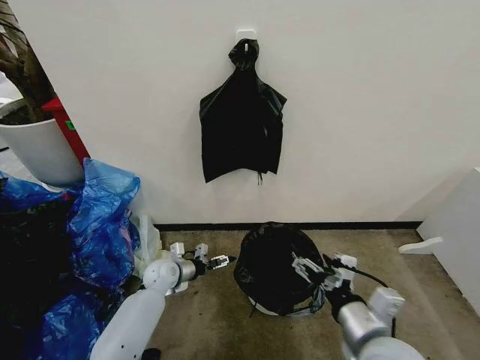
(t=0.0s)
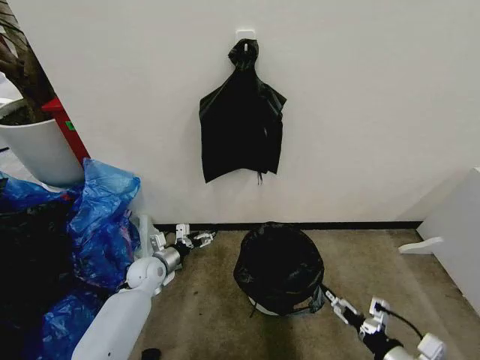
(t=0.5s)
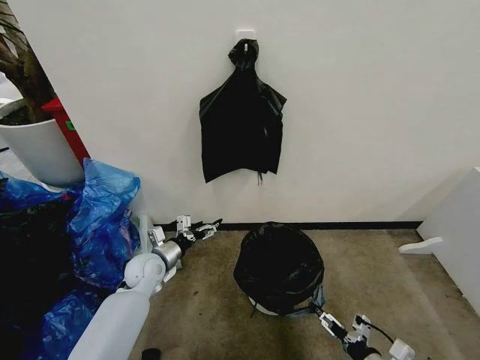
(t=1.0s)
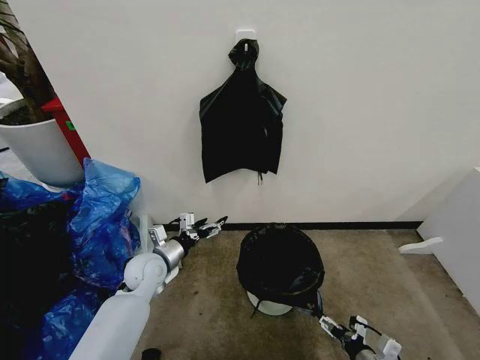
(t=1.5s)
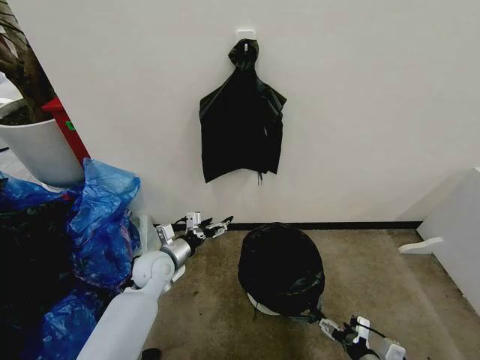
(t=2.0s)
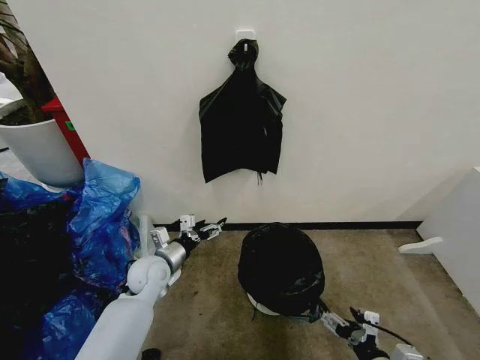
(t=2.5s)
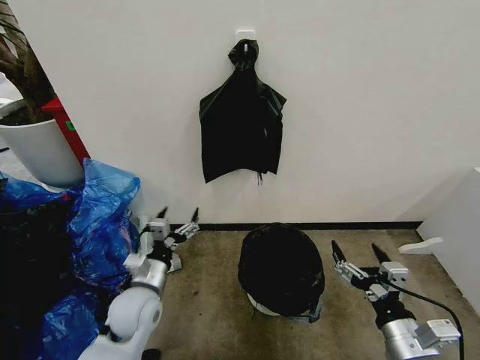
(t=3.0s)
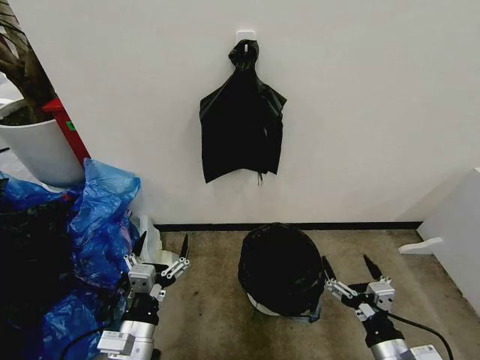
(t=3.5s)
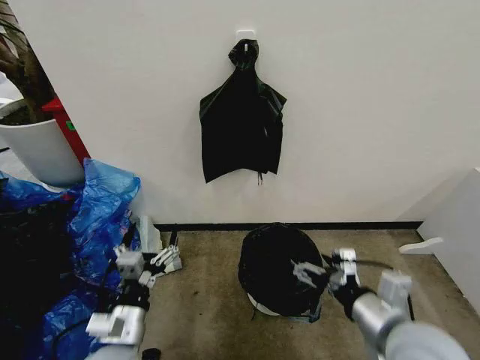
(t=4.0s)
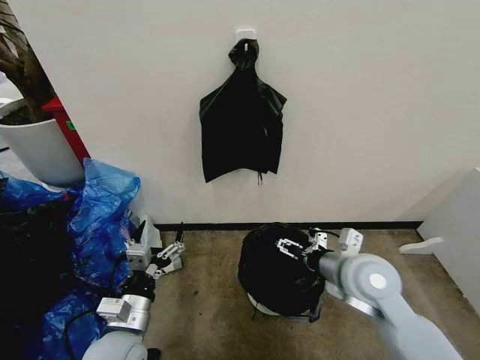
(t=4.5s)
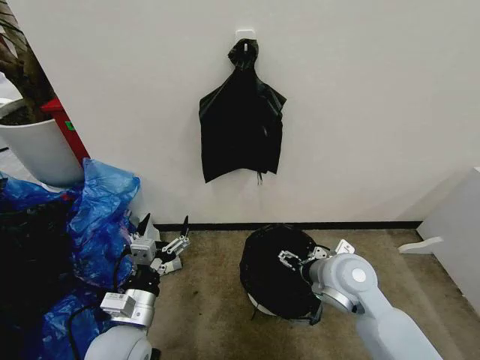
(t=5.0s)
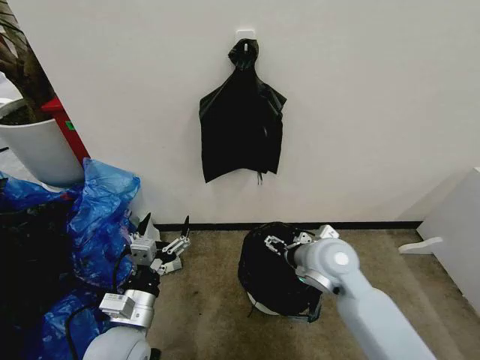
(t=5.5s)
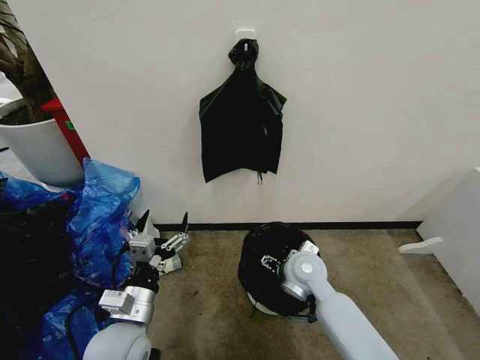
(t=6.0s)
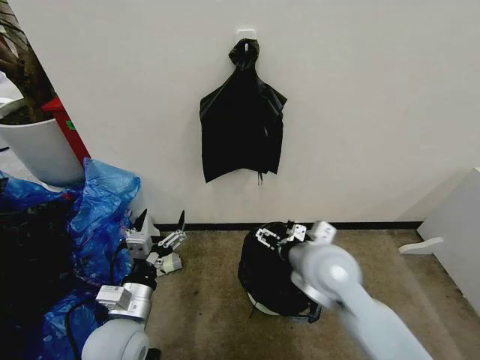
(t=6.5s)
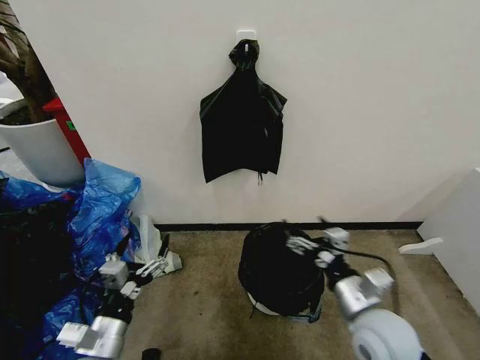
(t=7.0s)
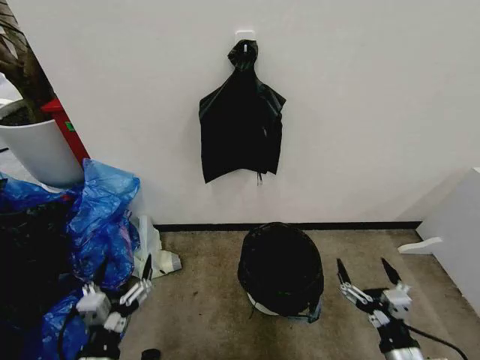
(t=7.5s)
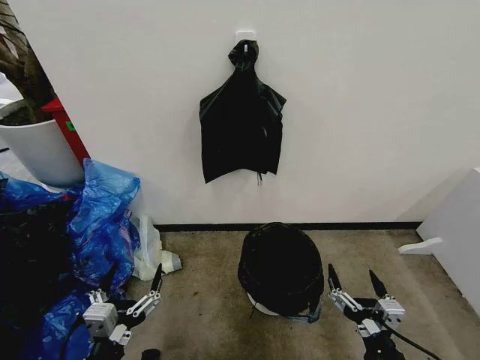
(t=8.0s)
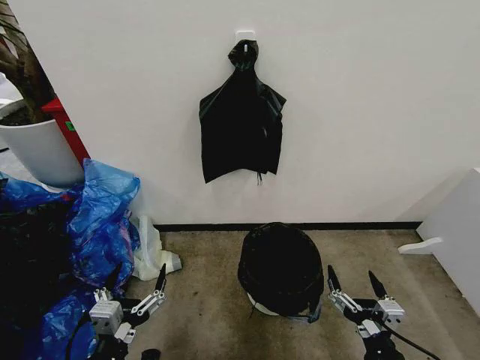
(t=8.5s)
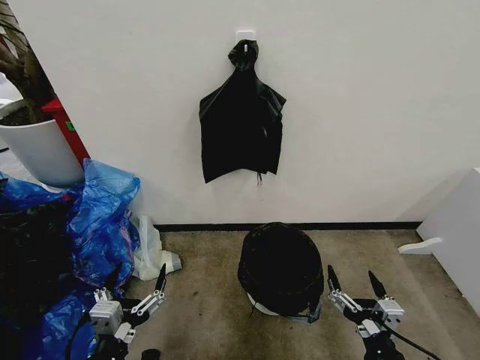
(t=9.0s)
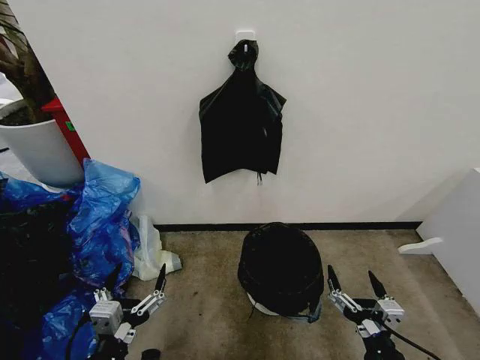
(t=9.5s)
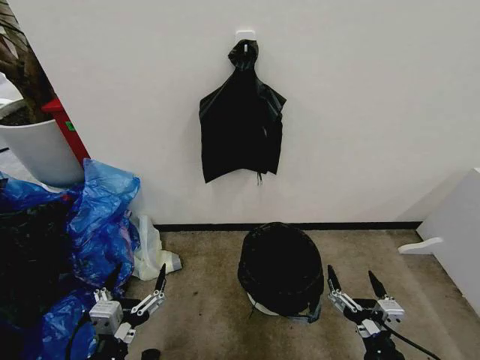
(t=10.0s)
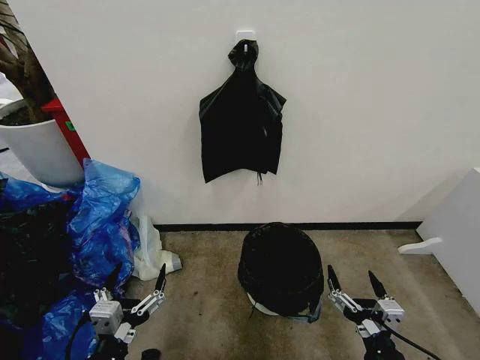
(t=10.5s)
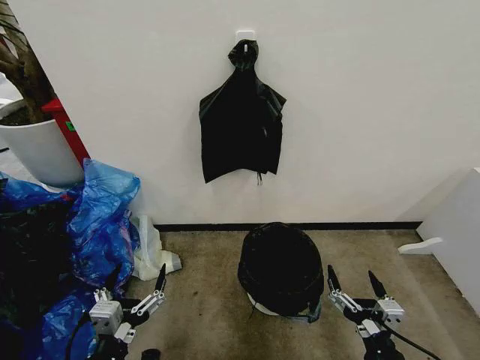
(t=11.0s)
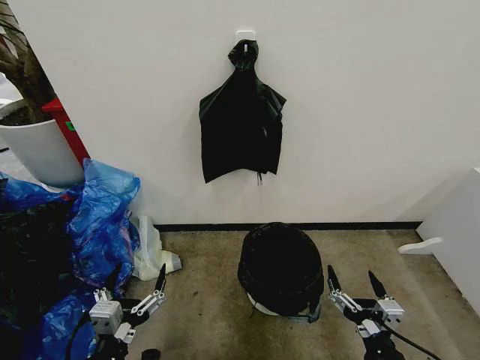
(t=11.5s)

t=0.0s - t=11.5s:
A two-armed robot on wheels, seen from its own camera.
Task of the whole recording: Place the garbage bag over the trash bin.
t=0.0s - t=2.0s: The left gripper heads upward, covering roughly 10 cm. The right gripper heads downward and to the right, covering roughly 20 cm.
t=2.0s - t=4.0s: The right gripper goes up and down, some 25 cm each way, reversing 2 times. The left gripper travels backward by about 20 cm.
t=4.0s - t=6.0s: The right gripper shifts about 25 cm forward, downward and to the left.
t=6.0s - t=7.5s: The right gripper moves backward and to the right, some 30 cm. Meanwhile the left gripper heads backward, covering roughly 10 cm.
t=7.5s - t=9.5s: The grippers stay close to where they were, moving slightly.
t=9.5s - t=11.5s: Neither gripper changes place.

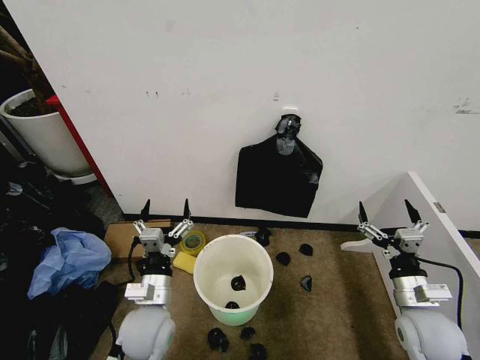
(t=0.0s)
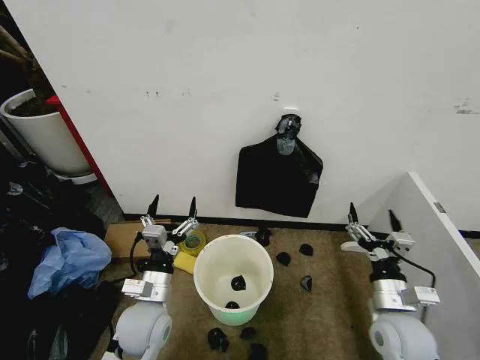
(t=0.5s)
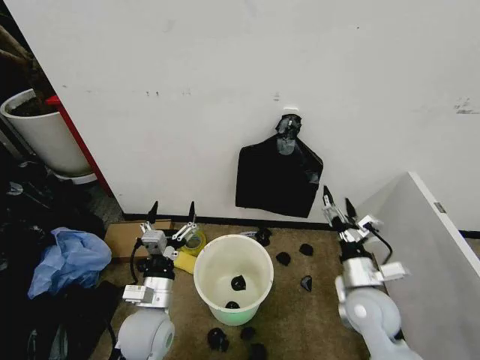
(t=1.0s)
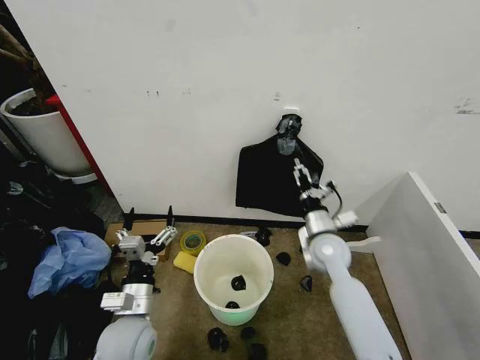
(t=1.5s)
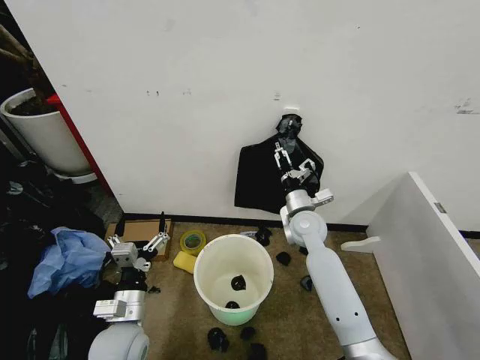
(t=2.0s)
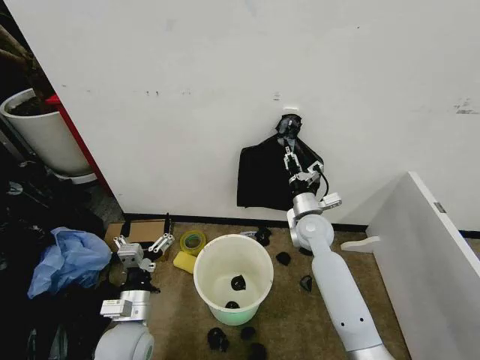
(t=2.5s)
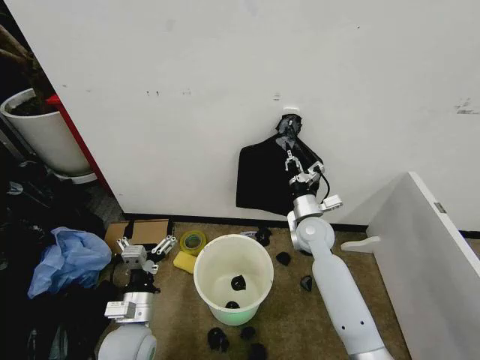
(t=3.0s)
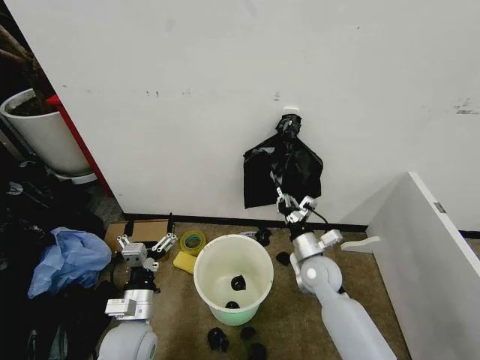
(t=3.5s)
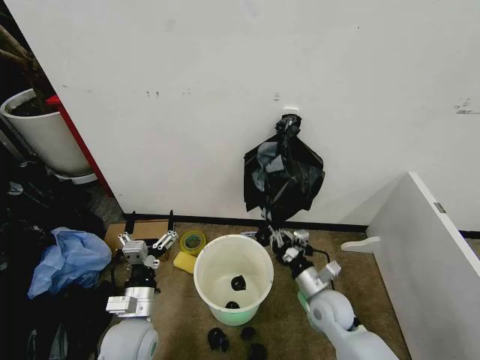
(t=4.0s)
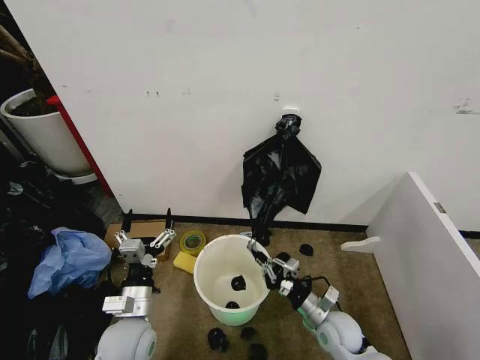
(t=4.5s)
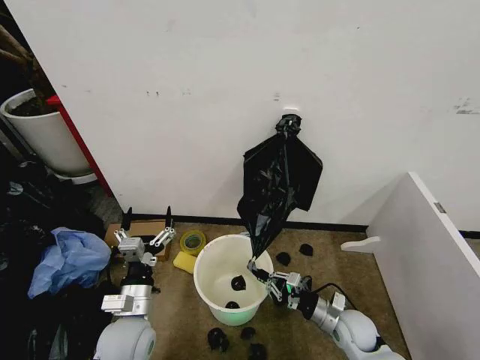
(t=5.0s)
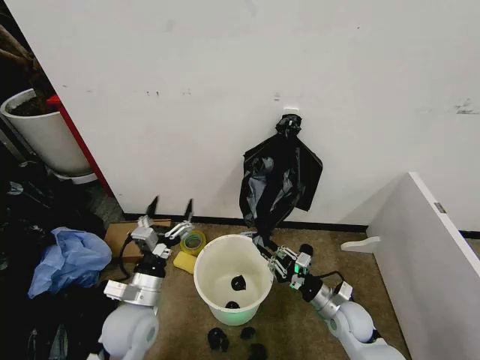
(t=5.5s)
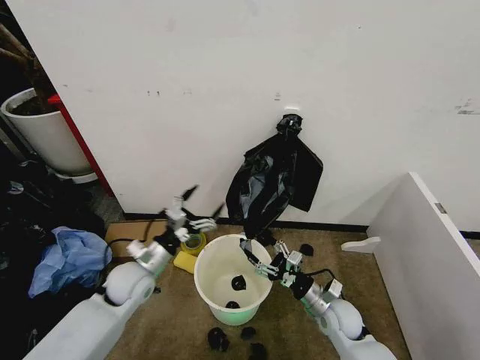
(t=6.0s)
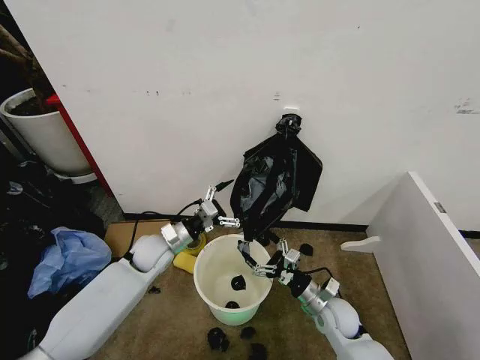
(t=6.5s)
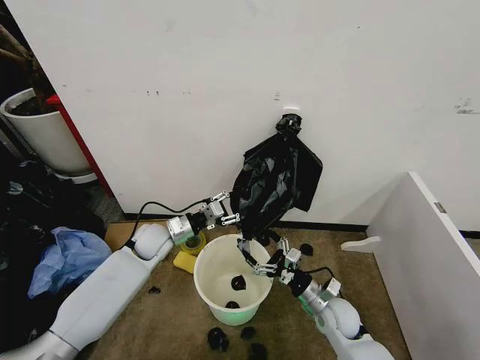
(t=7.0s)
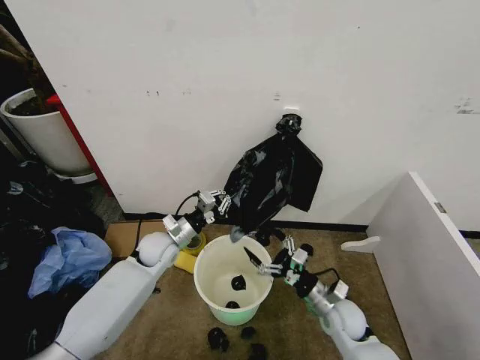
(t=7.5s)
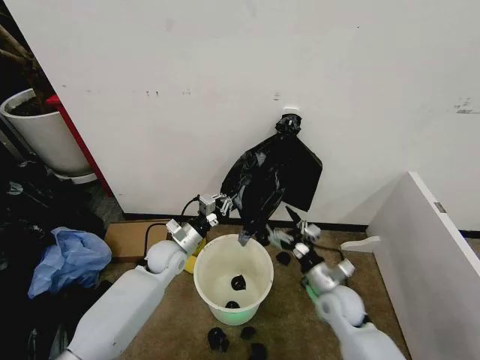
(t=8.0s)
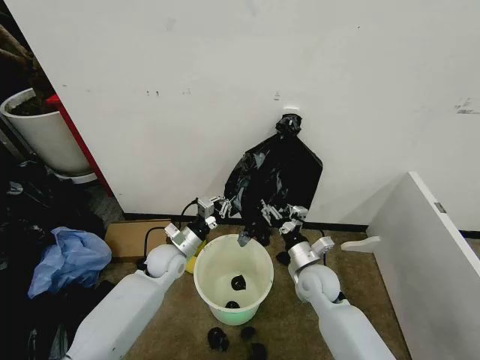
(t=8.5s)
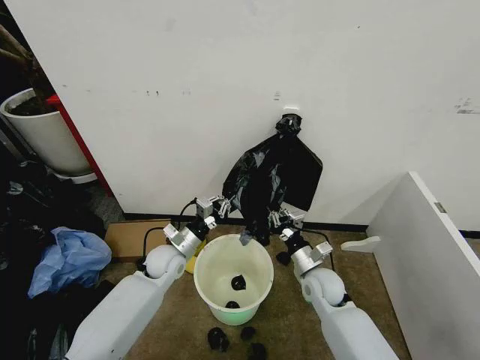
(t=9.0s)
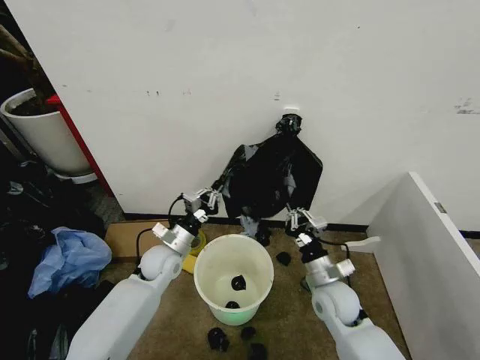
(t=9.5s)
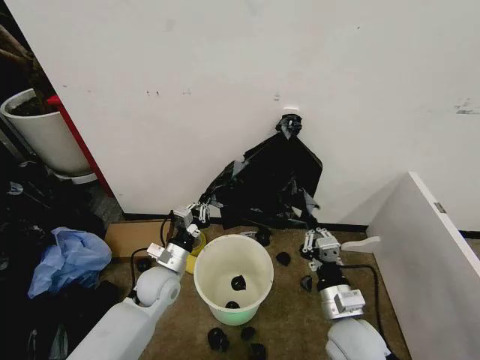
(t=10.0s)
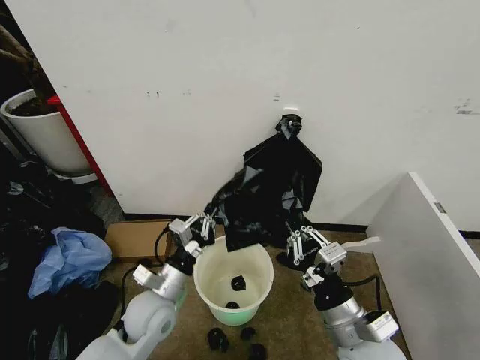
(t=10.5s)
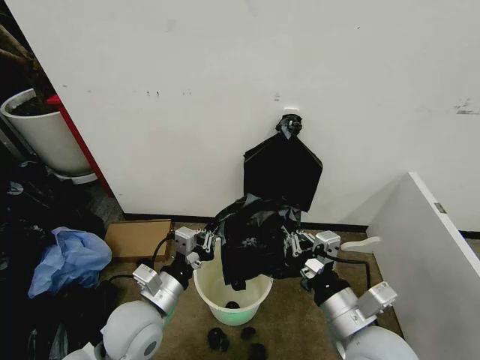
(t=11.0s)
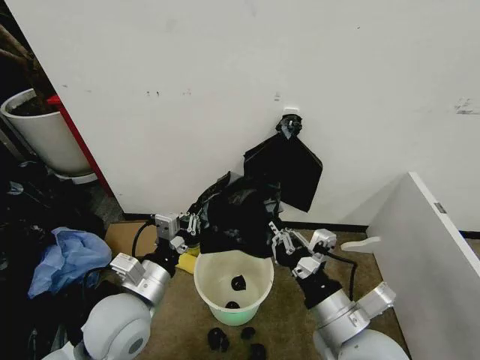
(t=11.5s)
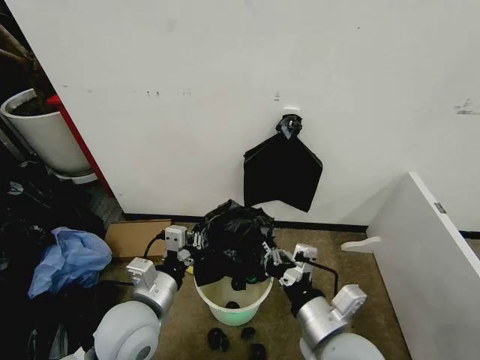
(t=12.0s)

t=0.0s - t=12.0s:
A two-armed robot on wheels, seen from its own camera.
Task of the whole recording: Place the garbage bag over the trash bin.
t=2.0s - t=4.0s: The right gripper goes about 15 cm backward and downward, and closes up.
t=4.0s - t=6.0s: The right gripper opens up. The left gripper moves forward, some 10 cm.
t=6.0s - t=8.0s: The left gripper moves forward and to the right, roughly 10 cm, and closes up.
t=8.0s - t=10.0s: The right gripper travels backward and upward by approximately 15 cm, and closes its fingers, while the left gripper goes some 10 cm backward.
t=10.0s - t=12.0s: The left gripper travels backward and upward by roughly 20 cm, while the right gripper moves upward, about 5 cm.

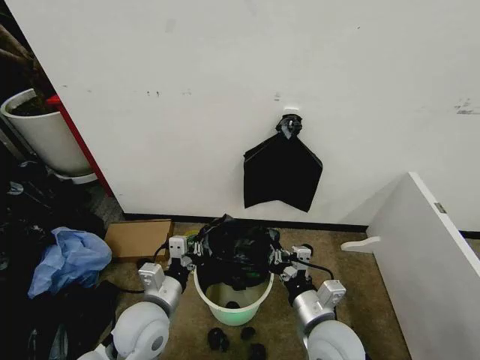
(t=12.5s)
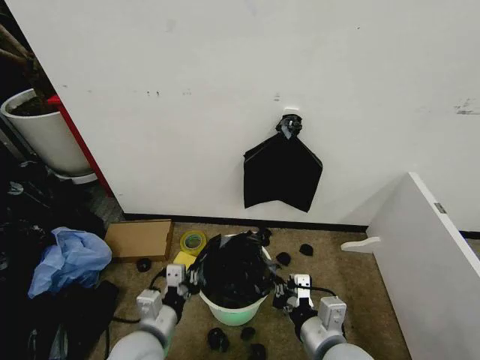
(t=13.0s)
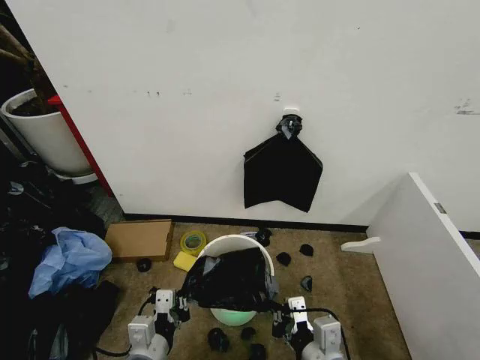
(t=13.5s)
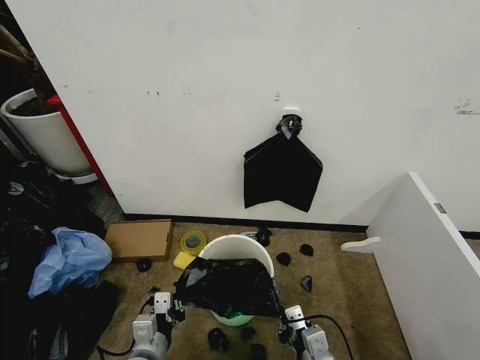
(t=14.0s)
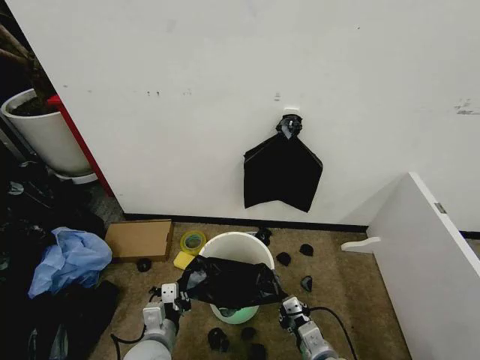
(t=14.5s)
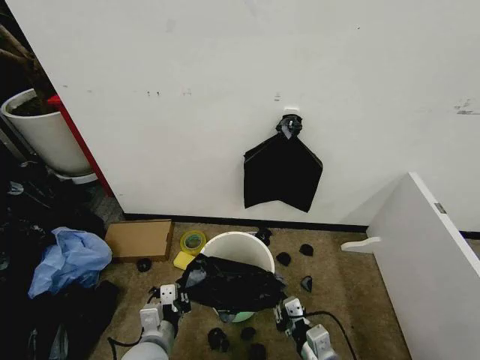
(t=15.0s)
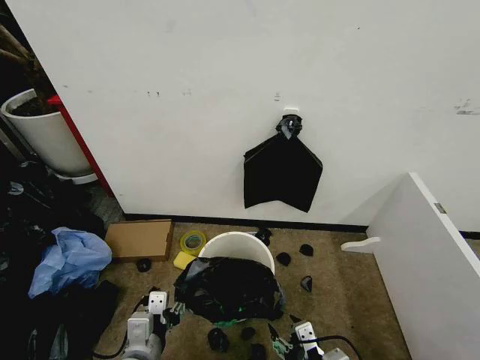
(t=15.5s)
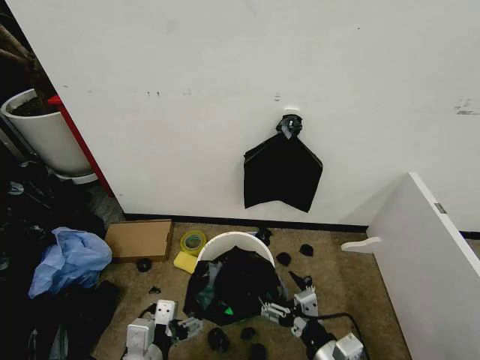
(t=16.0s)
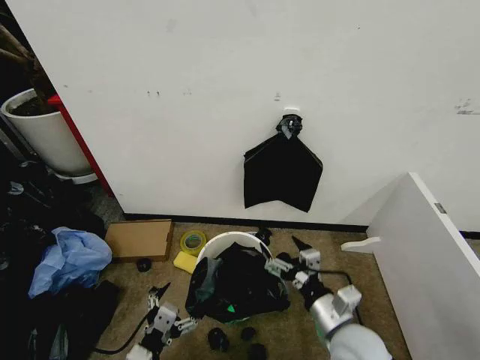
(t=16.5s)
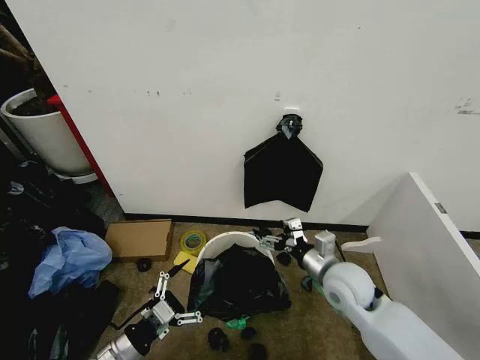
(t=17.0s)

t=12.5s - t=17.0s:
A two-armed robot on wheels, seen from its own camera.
Task of the whole recording: Place the garbage bag over the trash bin.
t=12.5s - t=14.5s: The grippers both shift downward by some 10 cm.
t=14.5s - t=17.0s: The left gripper goes about 10 cm to the left, travels upward and back again, about 10 cm each way, and opens; the right gripper moves forward and upward, about 20 cm, and opens.
